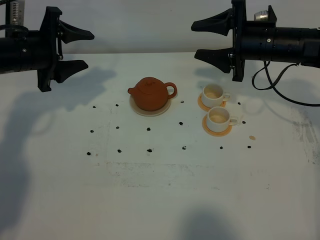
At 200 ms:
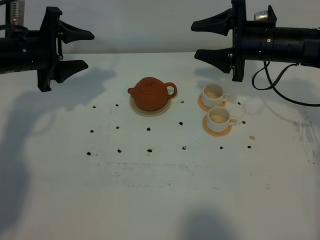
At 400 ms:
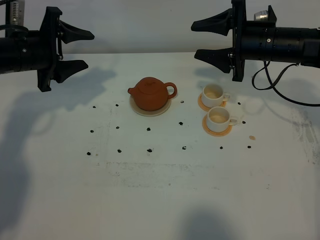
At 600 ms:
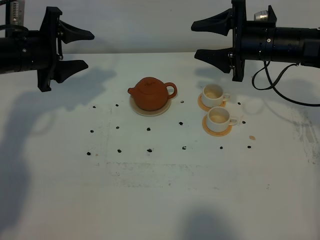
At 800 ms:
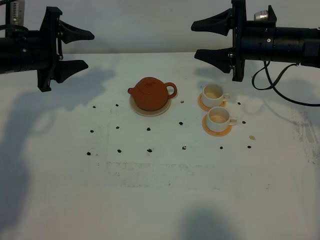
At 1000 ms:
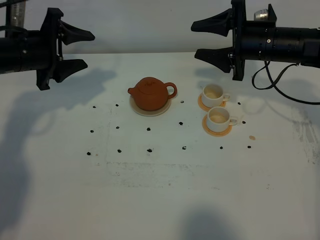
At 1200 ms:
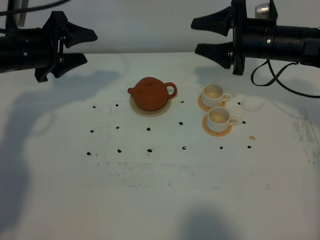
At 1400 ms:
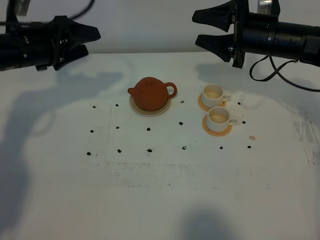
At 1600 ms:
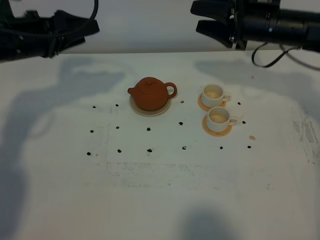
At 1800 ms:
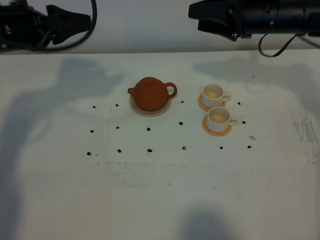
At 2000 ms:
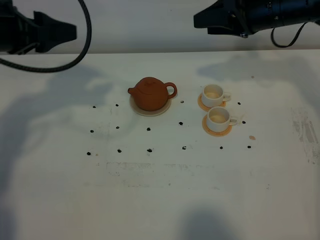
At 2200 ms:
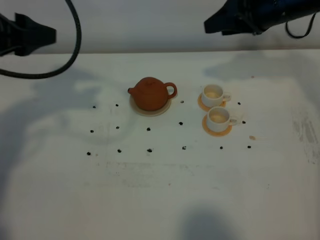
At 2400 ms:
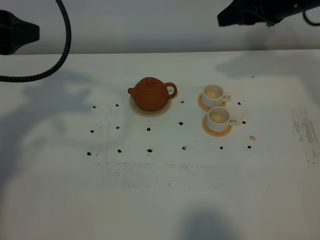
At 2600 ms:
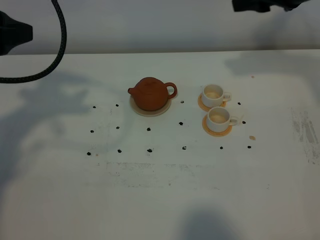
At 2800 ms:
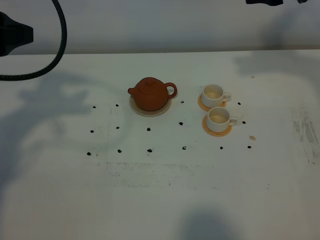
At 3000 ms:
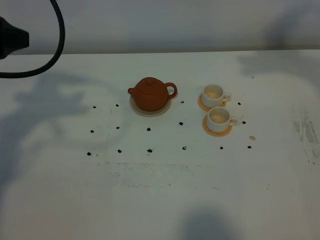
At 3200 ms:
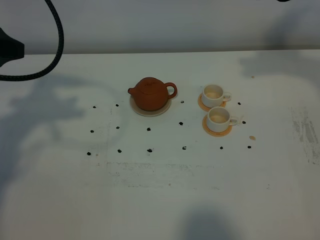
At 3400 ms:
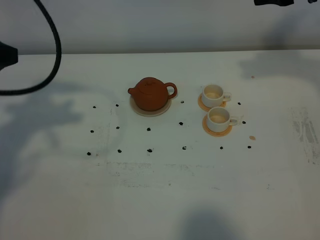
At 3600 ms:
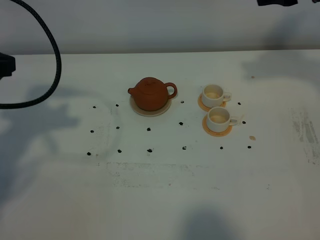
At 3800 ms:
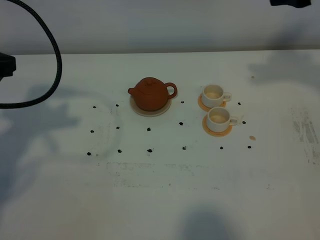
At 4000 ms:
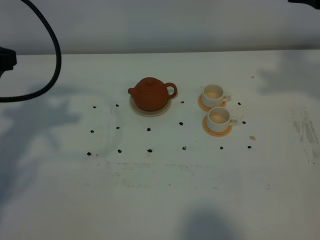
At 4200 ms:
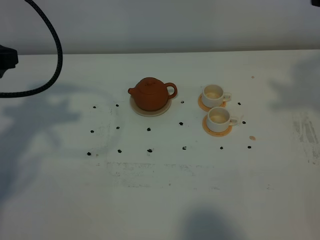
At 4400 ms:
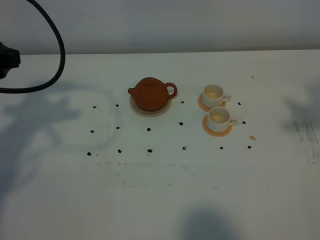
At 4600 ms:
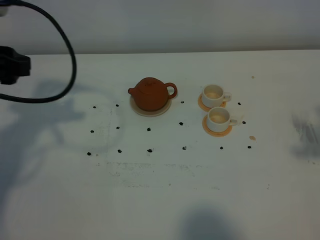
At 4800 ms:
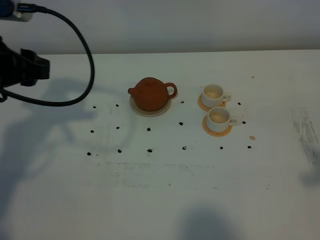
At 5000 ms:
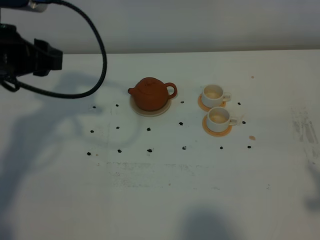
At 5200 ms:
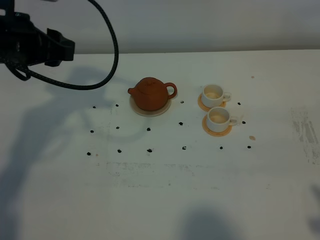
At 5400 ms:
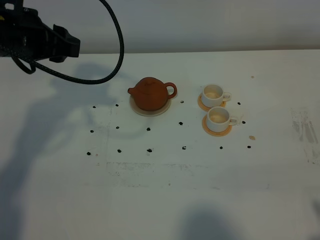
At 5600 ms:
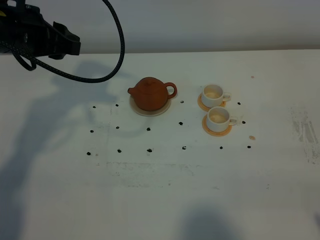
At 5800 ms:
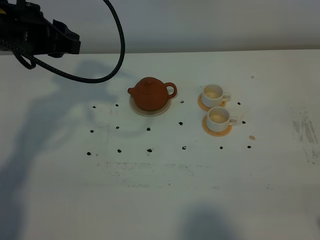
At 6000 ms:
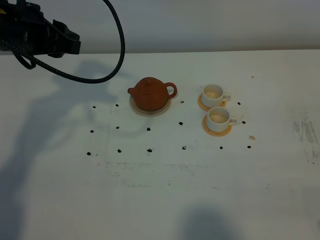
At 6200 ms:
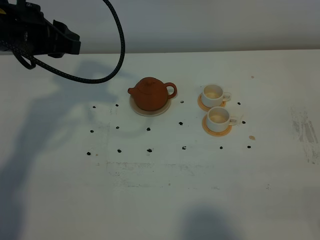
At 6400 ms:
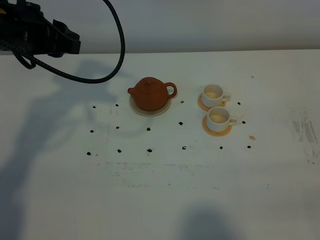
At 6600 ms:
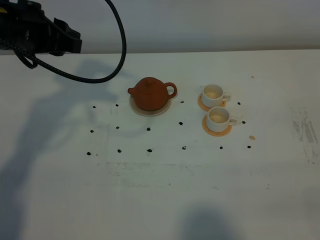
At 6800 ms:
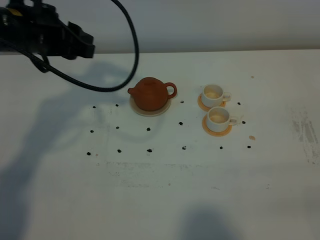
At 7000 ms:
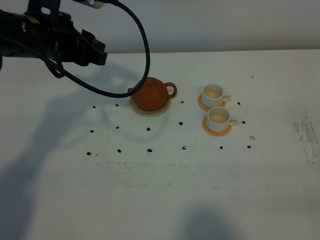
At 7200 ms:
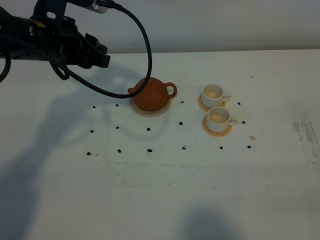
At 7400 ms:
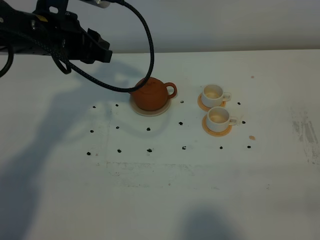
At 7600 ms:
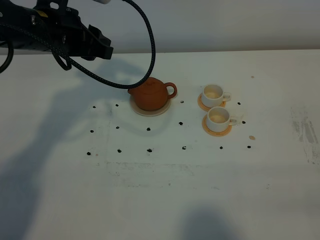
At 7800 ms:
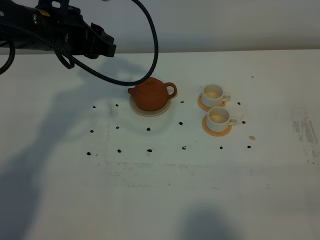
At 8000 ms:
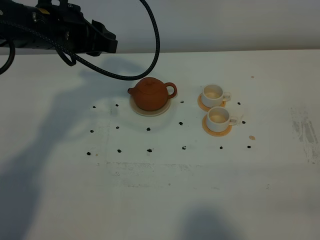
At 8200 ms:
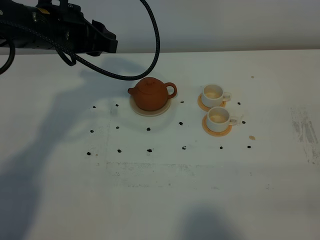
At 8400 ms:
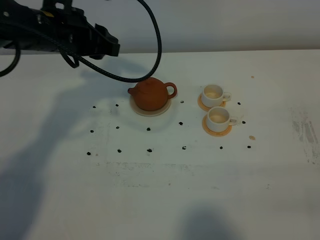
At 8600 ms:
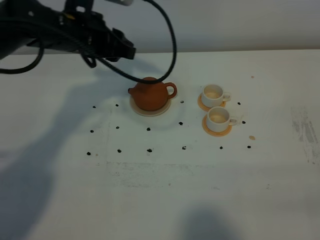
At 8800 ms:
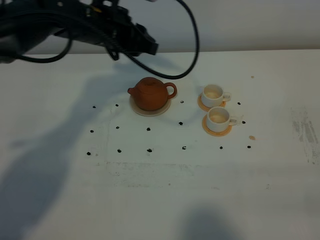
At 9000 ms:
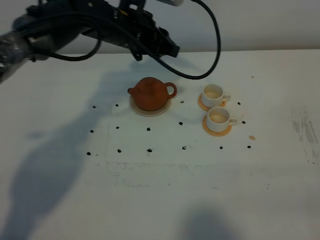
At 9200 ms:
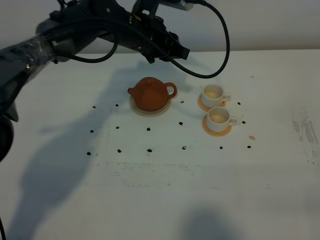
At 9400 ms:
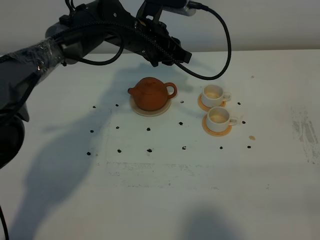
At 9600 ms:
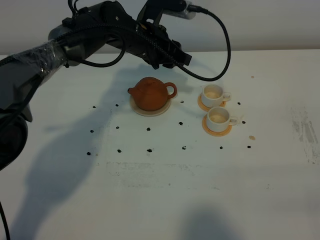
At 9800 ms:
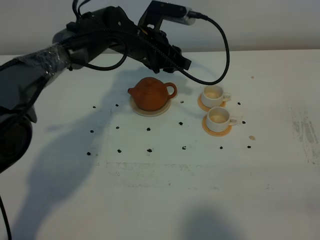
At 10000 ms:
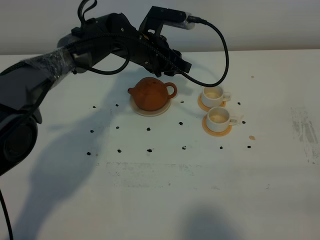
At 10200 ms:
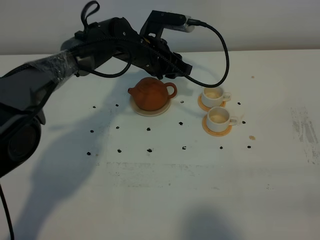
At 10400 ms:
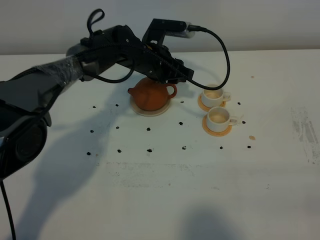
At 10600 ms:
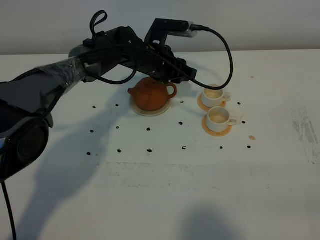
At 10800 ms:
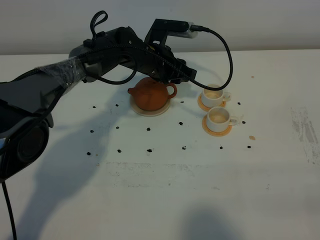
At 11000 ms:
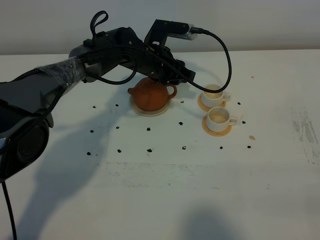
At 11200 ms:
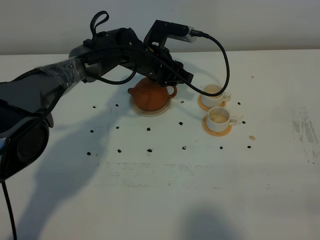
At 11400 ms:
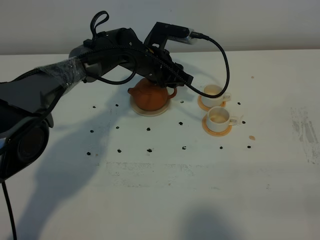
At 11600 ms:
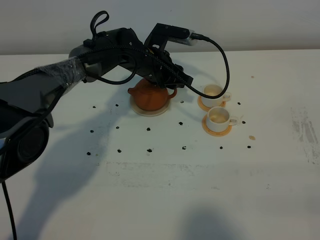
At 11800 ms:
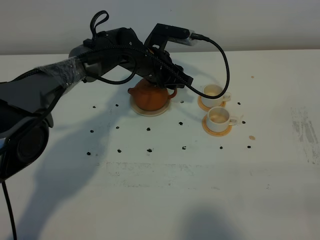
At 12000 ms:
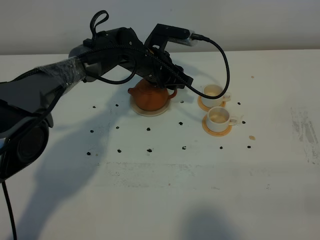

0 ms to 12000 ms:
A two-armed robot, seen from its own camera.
Task of the whole recording: grasp the brown teapot and pour the tea into the two white teacups one by one, put the brown teapot back in its original place.
1600 ms to 3000 ms: The right gripper is displaced upward and to the right by about 15 cm. Meanwhile the left gripper is displaced upward and backward by roughly 15 cm.
3000 ms to 4400 ms: The right gripper moves backward, some 20 cm.
4400 ms to 6000 ms: The left gripper shifts some 10 cm forward and to the right; the right gripper moves backward and downward, some 25 cm.
6000 ms to 7600 ms: The left gripper moves some 5 cm.
7600 ms to 9000 ms: The left gripper heads to the right and forward, covering about 15 cm.
9000 ms to 10400 ms: The left gripper heads downward, covering some 10 cm.
10400 ms to 12000 ms: The grippers stay close to where they were, moving slightly.

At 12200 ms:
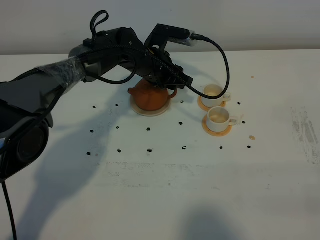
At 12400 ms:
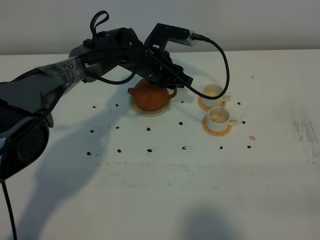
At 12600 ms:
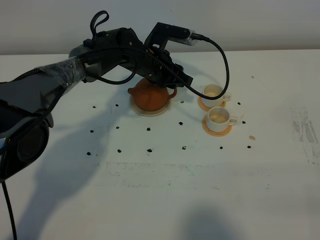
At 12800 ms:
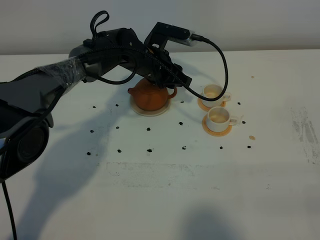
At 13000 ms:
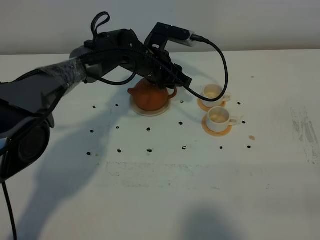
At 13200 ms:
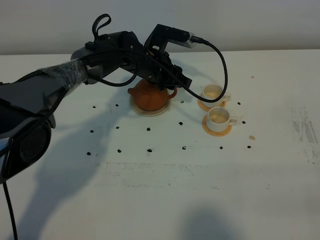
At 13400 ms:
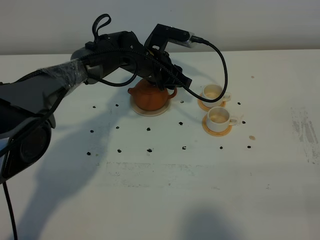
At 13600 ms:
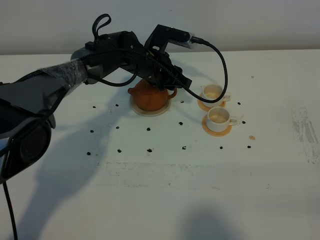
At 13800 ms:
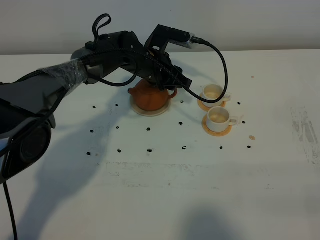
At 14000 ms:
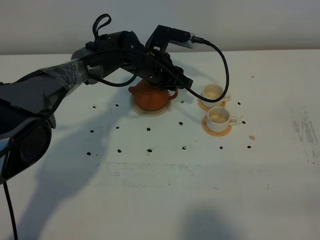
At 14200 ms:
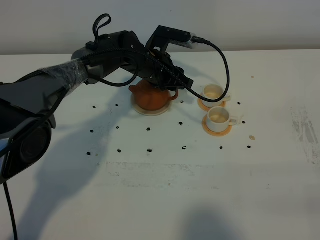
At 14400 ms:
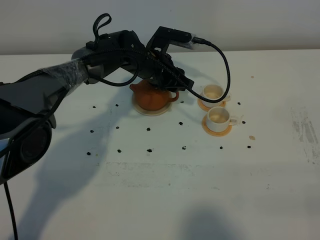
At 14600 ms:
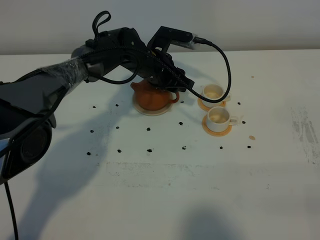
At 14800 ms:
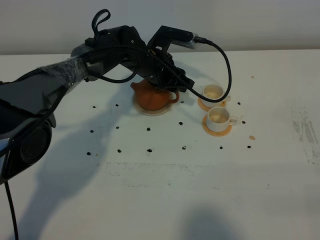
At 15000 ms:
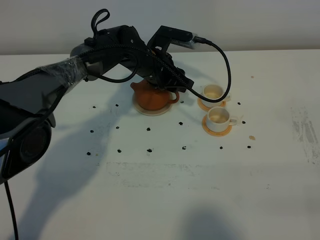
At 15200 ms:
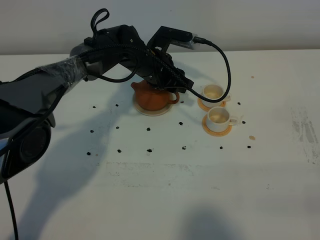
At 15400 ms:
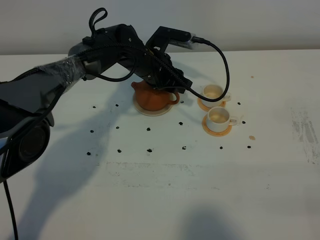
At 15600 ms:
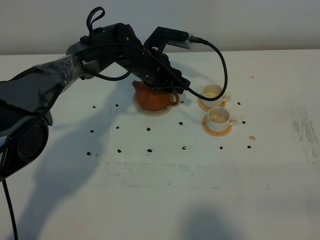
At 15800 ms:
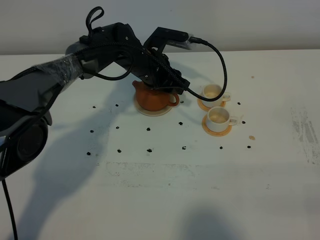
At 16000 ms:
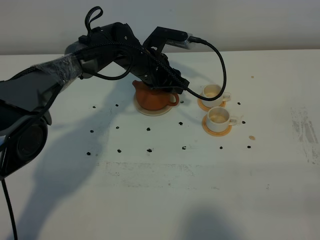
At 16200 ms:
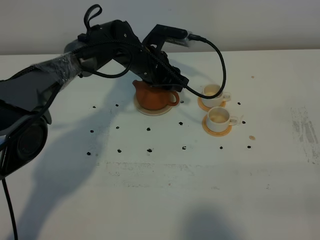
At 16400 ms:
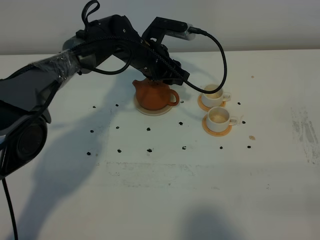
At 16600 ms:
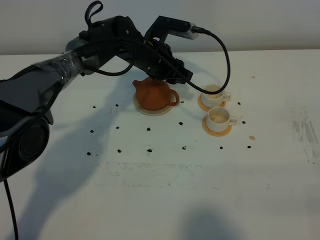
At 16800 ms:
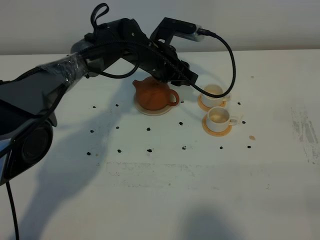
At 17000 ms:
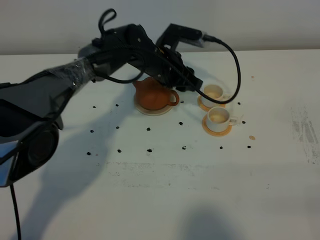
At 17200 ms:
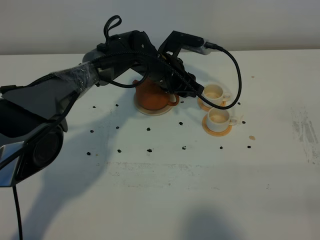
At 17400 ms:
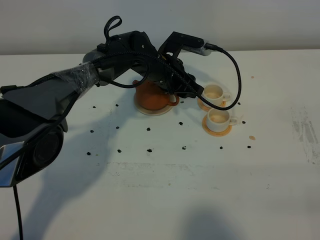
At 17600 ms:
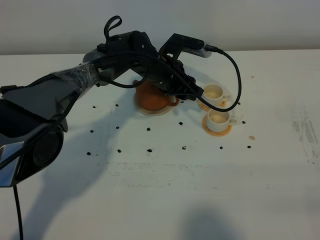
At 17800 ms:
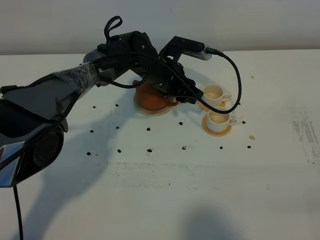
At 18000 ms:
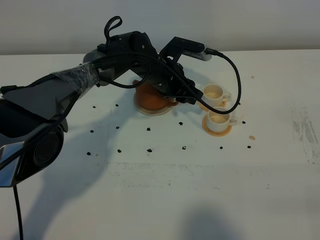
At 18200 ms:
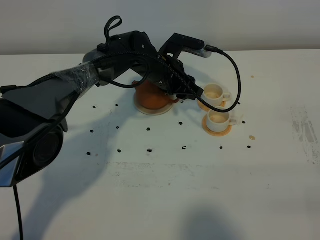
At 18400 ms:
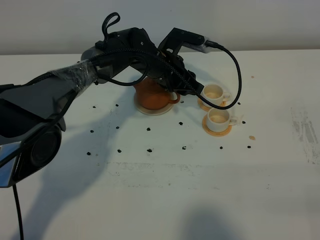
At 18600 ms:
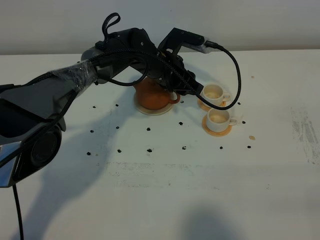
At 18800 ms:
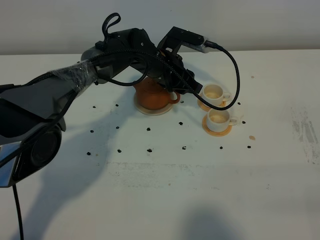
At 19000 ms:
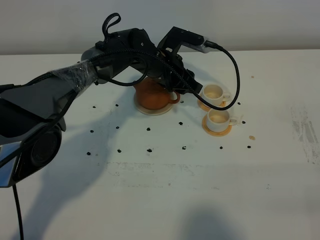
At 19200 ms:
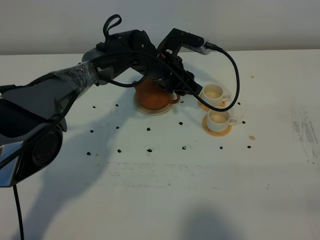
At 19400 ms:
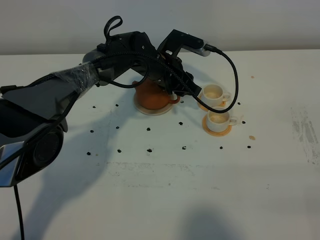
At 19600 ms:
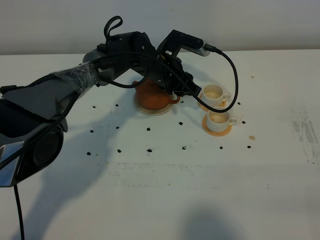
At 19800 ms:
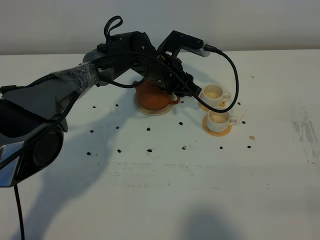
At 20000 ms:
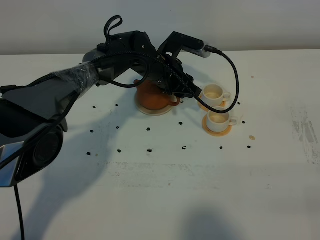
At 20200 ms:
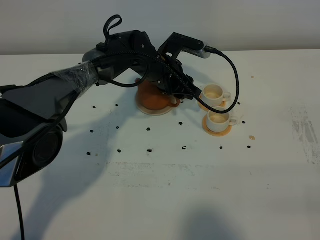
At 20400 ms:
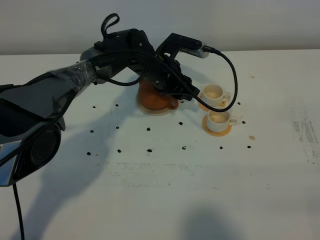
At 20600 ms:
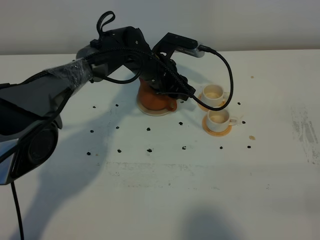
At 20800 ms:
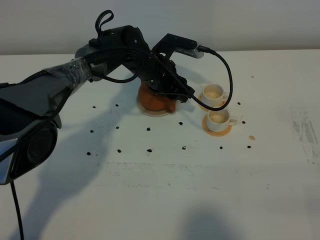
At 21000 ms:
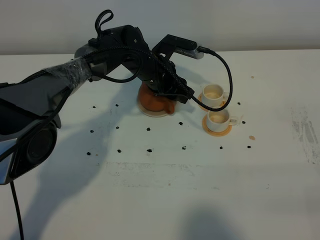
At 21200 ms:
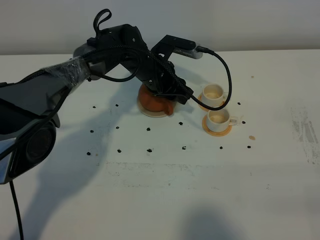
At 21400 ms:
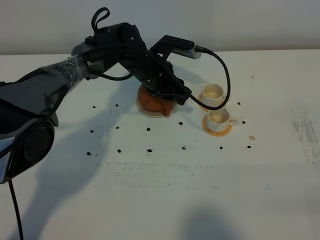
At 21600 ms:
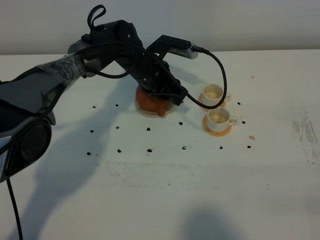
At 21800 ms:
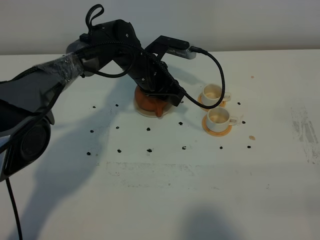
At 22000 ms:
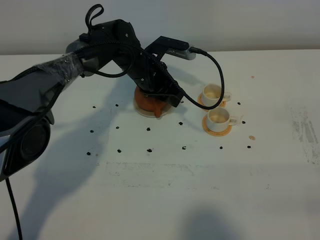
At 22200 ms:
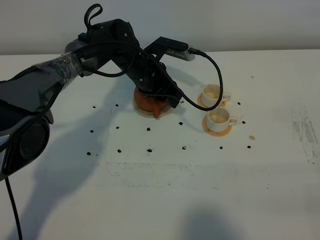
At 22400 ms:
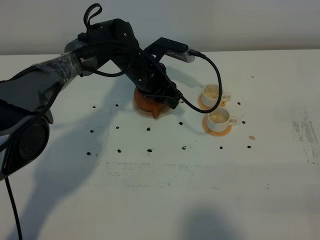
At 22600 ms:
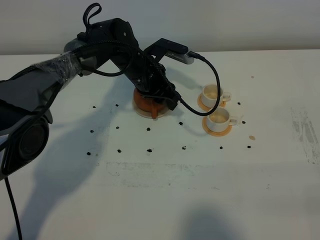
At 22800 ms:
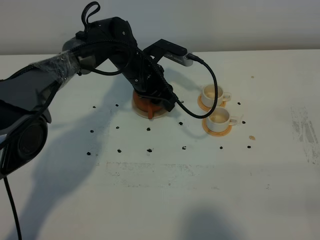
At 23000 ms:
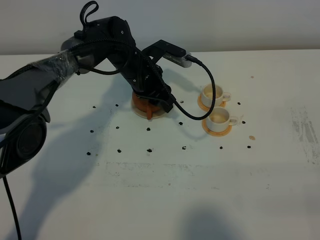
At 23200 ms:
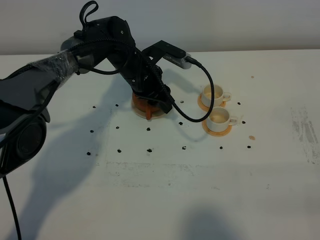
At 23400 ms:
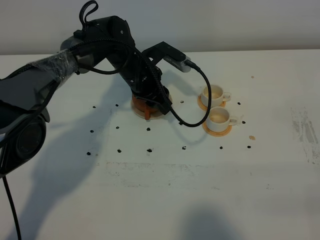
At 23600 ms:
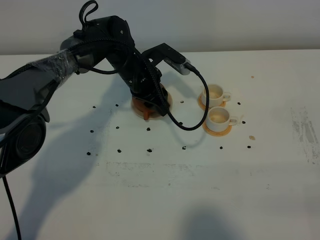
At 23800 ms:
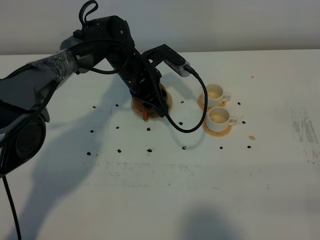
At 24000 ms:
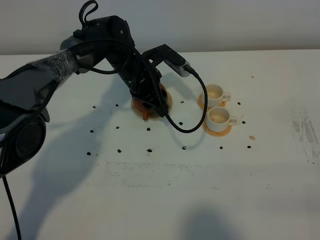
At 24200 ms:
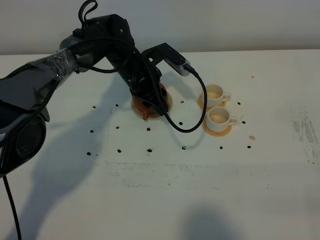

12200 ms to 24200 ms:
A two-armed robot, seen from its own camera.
Task of the whole recording: grasp the brown teapot and pour the tea into the two white teacups one by one, put the brown teapot back in its original place.
12200 ms to 13800 ms: Neither gripper changes place.
13800 ms to 18200 ms: The grippers make only small movements.
18200 ms to 19800 ms: Neither gripper changes place.
19800 ms to 22600 ms: The grippers make only small movements.
22600 ms to 24200 ms: The grippers stay close to where they were, moving slightly.
